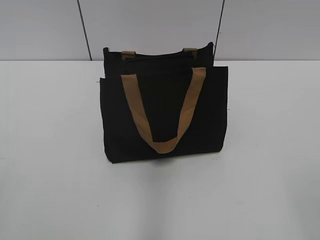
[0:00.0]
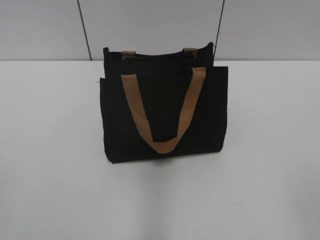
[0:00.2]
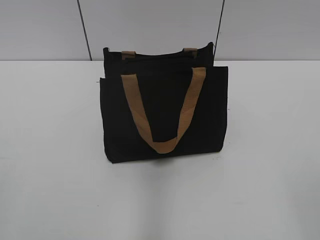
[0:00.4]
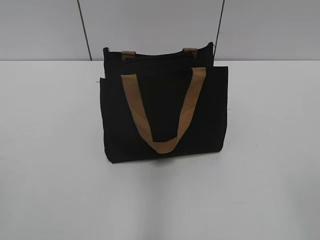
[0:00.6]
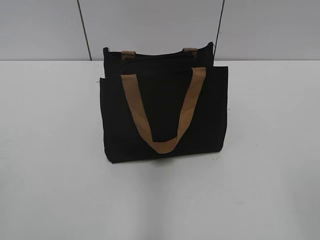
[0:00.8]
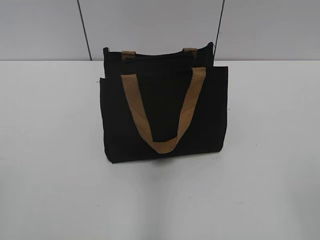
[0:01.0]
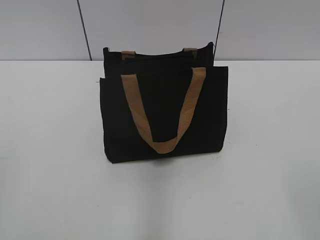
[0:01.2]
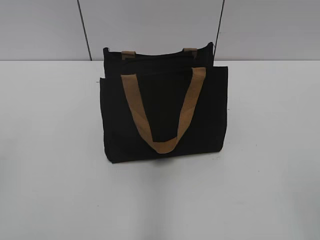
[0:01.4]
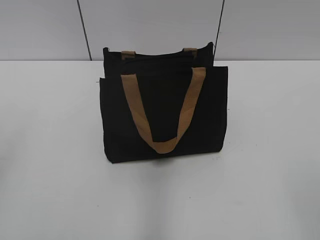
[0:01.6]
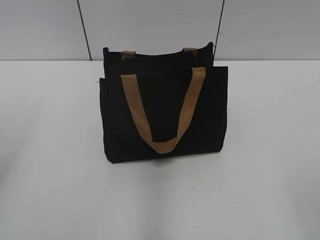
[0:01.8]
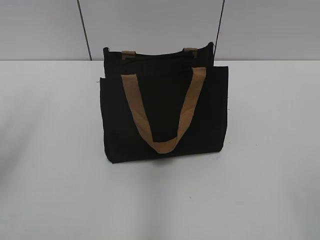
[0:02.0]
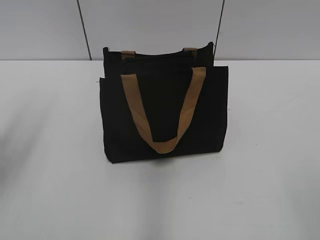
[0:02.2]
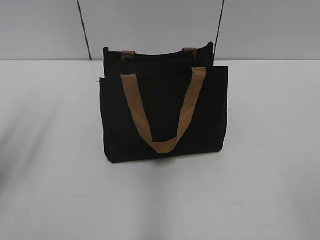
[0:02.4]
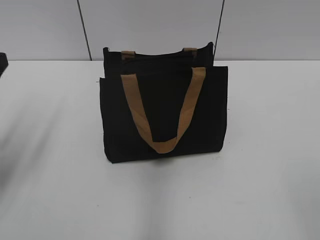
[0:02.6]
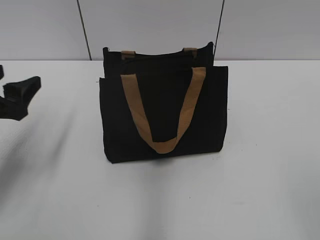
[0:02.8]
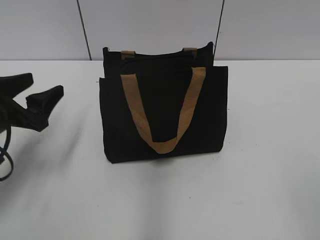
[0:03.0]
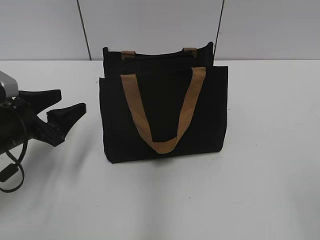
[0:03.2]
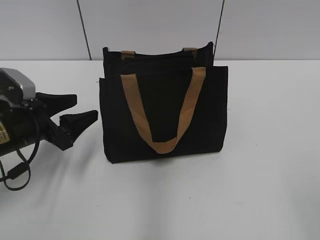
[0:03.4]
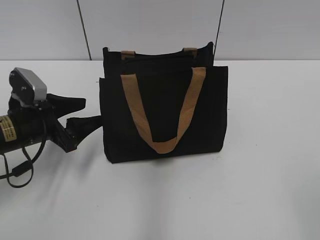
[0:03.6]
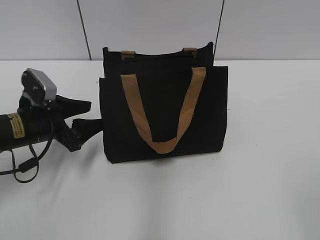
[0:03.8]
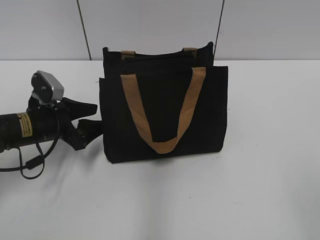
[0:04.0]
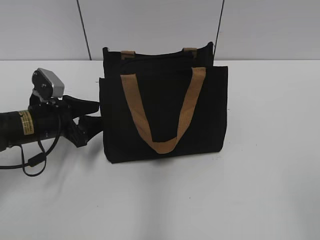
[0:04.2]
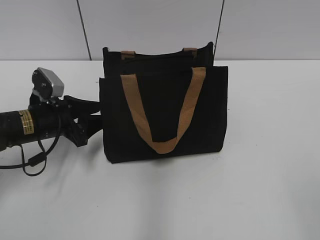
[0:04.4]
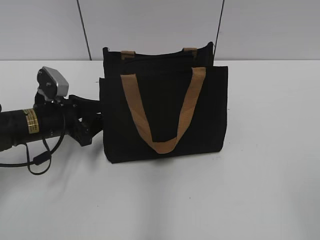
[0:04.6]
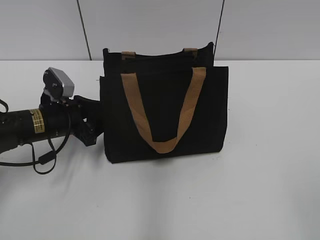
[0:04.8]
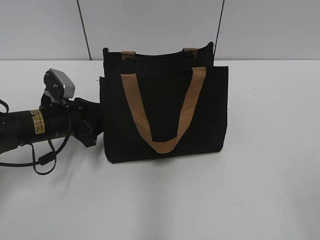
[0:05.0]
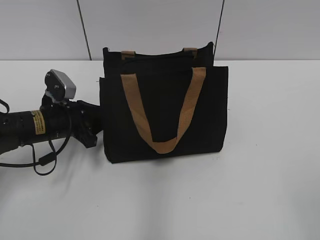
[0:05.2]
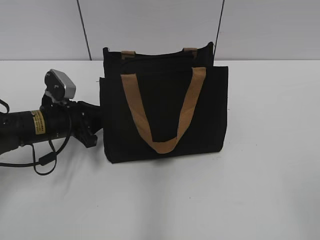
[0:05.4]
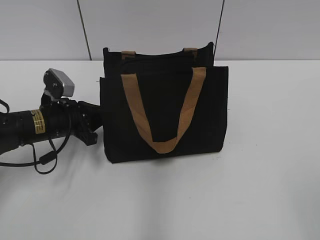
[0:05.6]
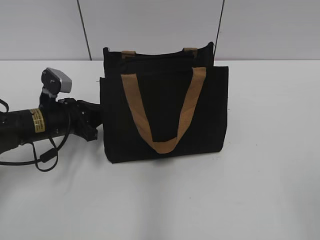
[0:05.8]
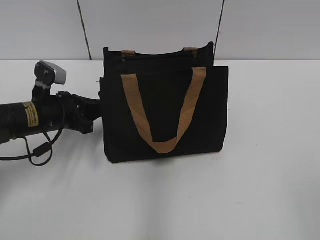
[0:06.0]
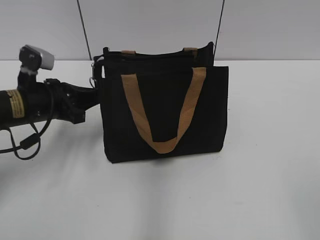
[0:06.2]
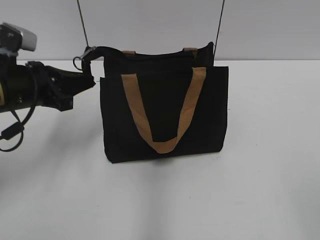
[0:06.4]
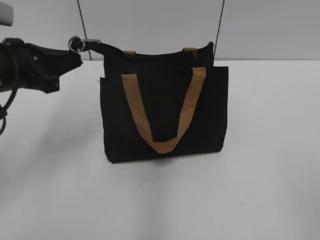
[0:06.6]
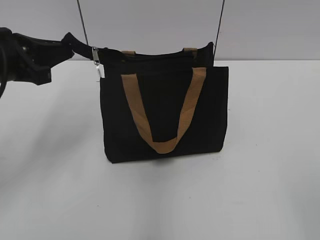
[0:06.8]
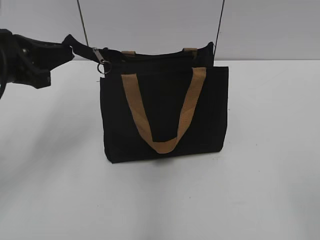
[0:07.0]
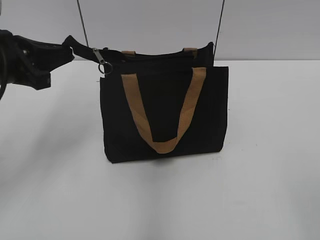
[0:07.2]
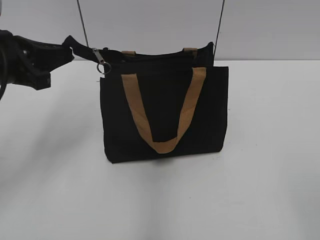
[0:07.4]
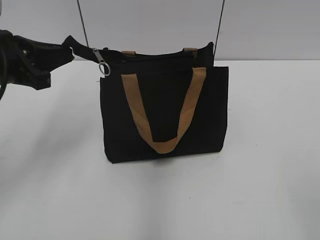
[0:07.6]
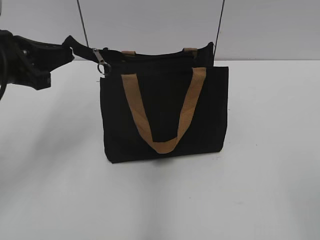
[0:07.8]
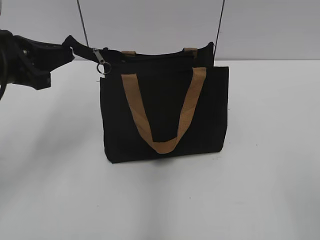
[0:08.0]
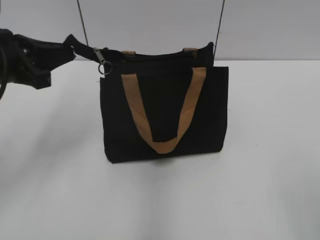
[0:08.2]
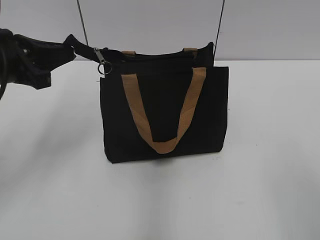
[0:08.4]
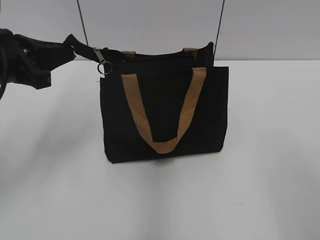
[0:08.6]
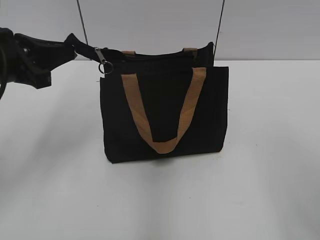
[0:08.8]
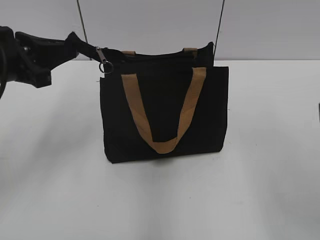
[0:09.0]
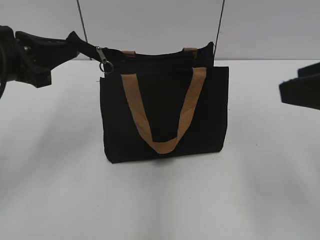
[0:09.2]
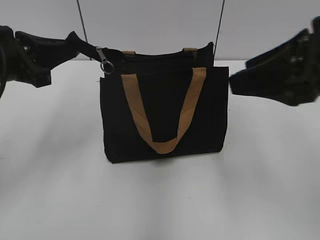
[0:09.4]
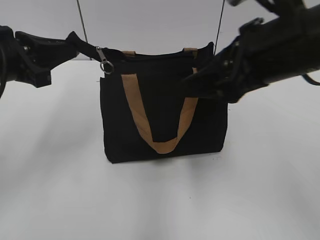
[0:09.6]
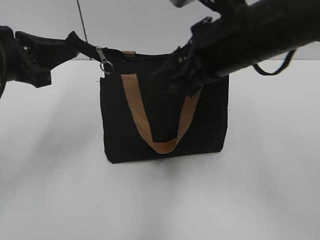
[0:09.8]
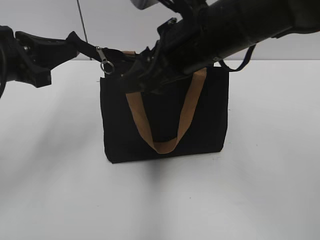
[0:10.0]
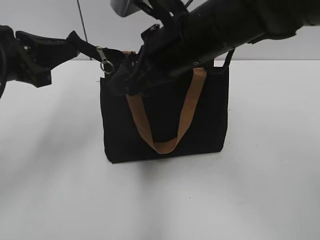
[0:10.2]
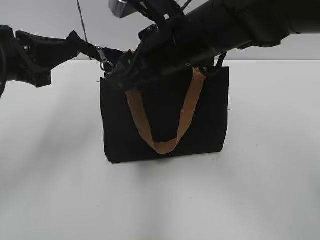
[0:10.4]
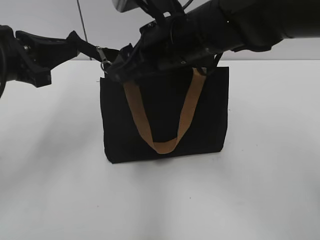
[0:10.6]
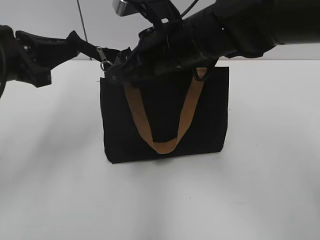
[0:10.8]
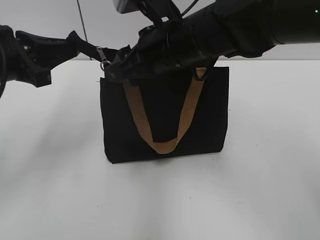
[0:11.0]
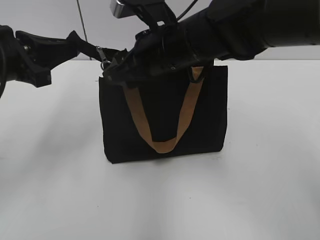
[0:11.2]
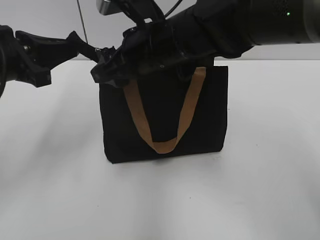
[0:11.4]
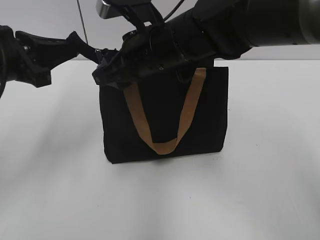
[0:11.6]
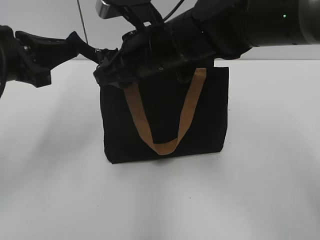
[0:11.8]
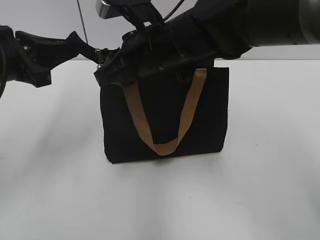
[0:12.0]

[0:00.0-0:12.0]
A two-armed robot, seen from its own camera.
0:01.6 to 0:03.0: The left gripper travels forward and downward by about 25 cm.
0:03.0 to 0:04.4: The left gripper goes about 10 cm downward and forward.
0:04.4 to 0:06.0: The left gripper closes.
0:06.0 to 0:07.6: The left gripper goes roughly 15 cm upward.
0:09.0 to 0:10.4: The right gripper travels to the left and forward by some 30 cm.
0:10.4 to 0:12.0: The right gripper closes its fingers.

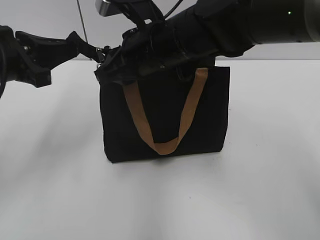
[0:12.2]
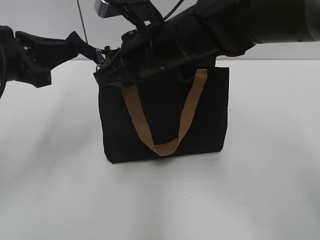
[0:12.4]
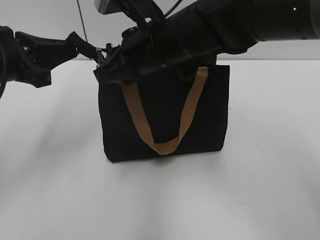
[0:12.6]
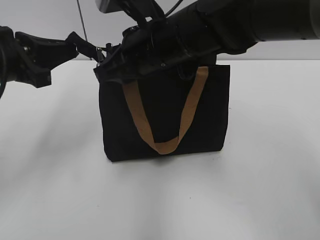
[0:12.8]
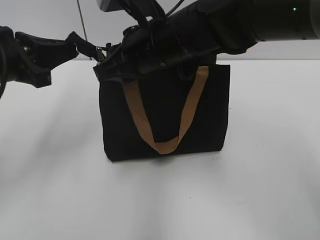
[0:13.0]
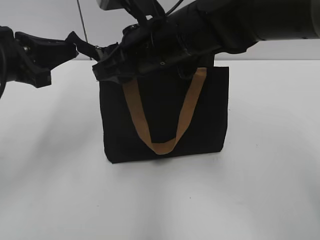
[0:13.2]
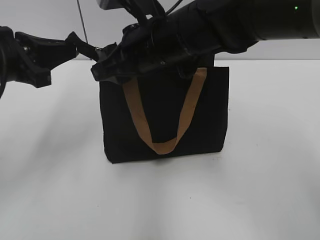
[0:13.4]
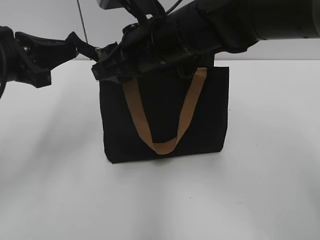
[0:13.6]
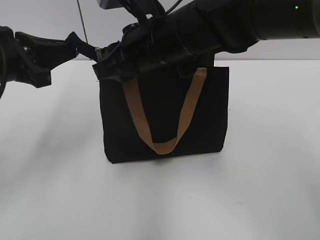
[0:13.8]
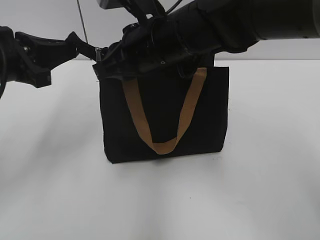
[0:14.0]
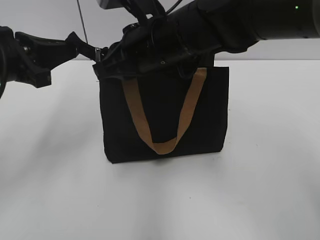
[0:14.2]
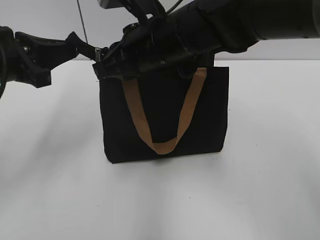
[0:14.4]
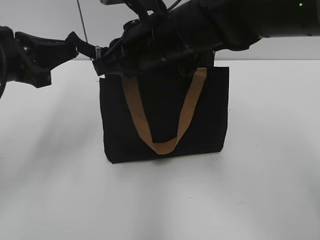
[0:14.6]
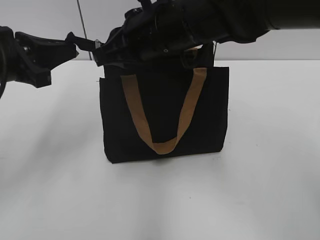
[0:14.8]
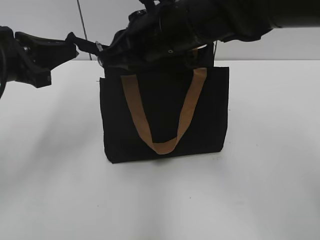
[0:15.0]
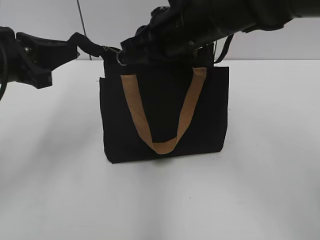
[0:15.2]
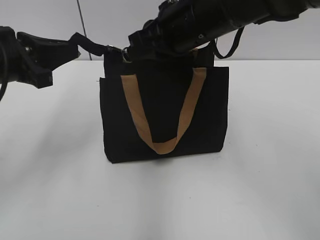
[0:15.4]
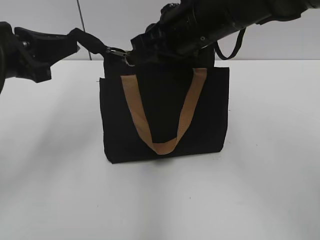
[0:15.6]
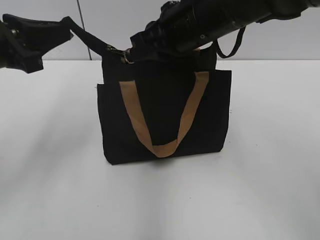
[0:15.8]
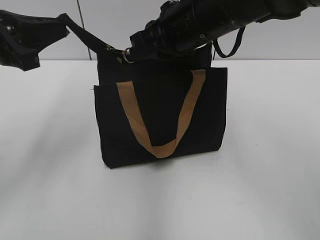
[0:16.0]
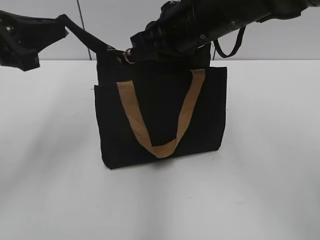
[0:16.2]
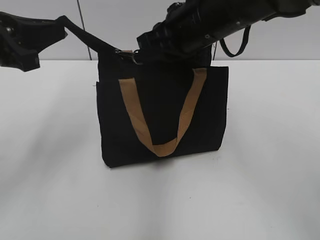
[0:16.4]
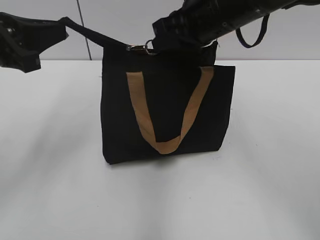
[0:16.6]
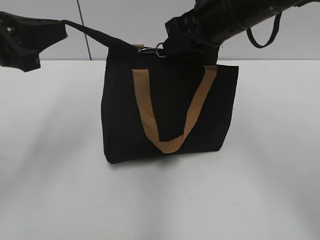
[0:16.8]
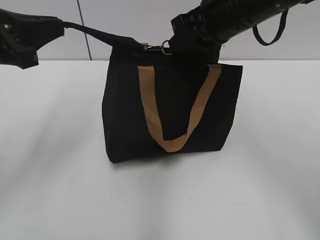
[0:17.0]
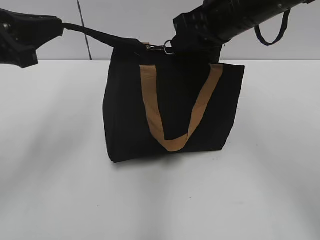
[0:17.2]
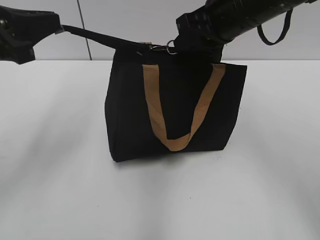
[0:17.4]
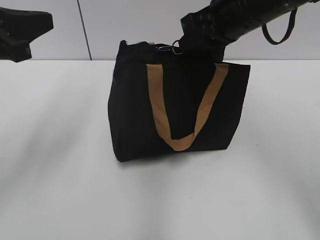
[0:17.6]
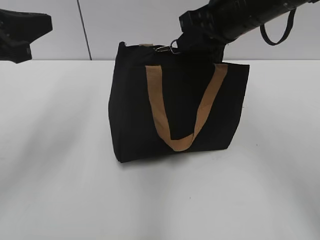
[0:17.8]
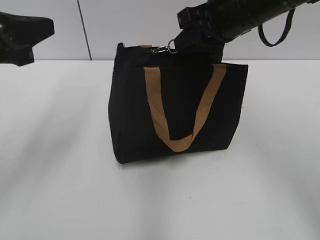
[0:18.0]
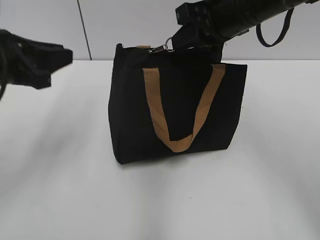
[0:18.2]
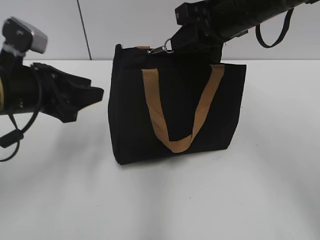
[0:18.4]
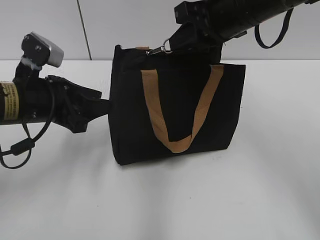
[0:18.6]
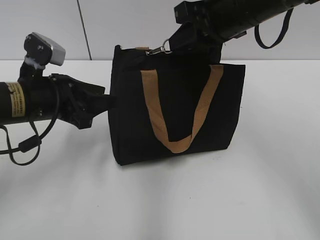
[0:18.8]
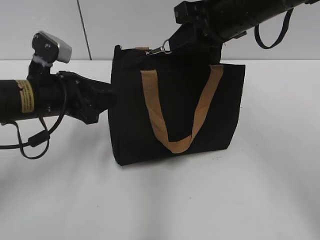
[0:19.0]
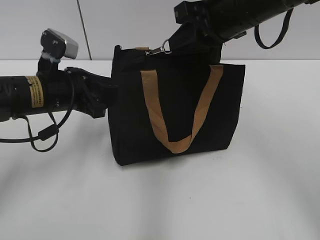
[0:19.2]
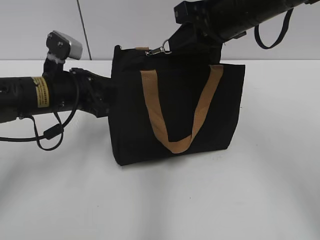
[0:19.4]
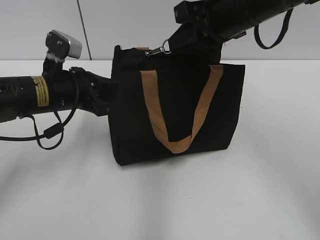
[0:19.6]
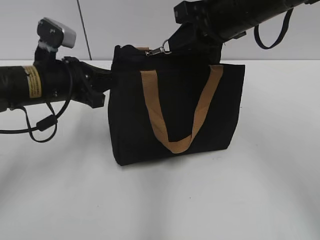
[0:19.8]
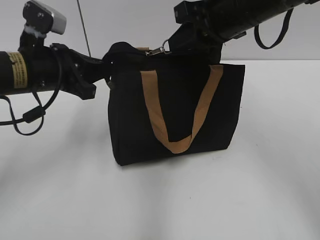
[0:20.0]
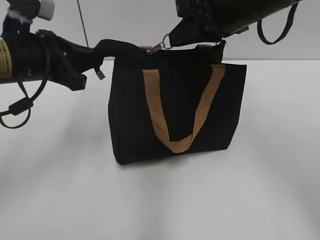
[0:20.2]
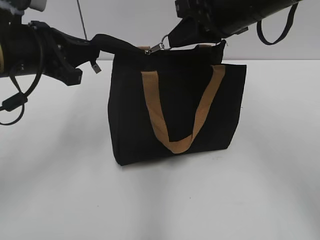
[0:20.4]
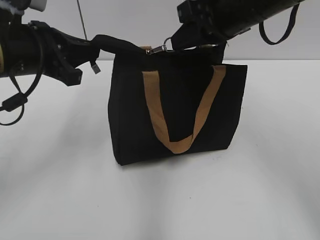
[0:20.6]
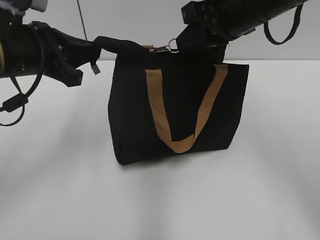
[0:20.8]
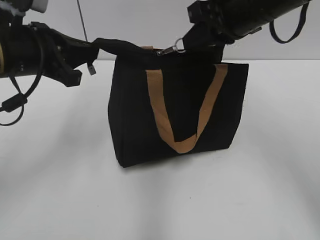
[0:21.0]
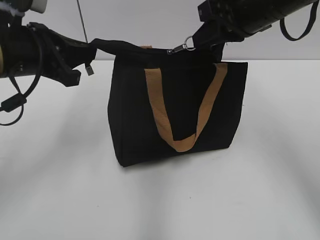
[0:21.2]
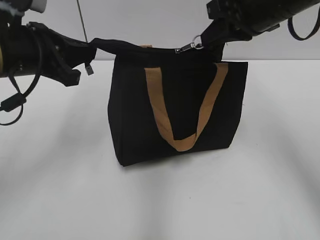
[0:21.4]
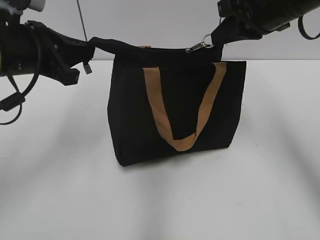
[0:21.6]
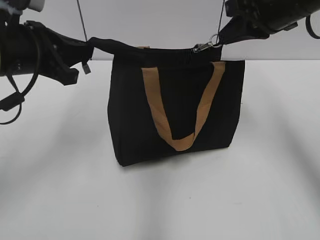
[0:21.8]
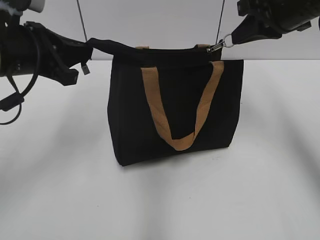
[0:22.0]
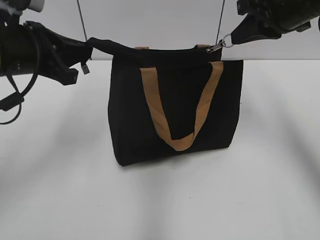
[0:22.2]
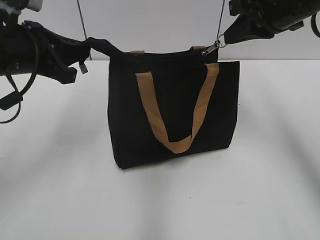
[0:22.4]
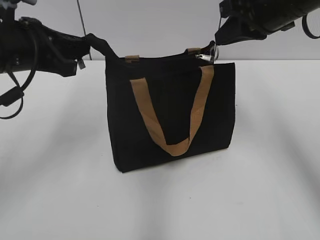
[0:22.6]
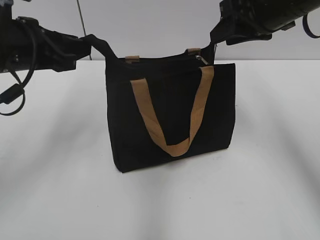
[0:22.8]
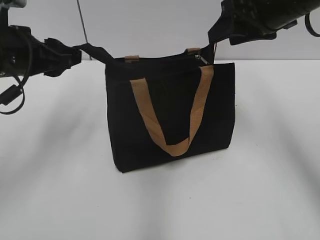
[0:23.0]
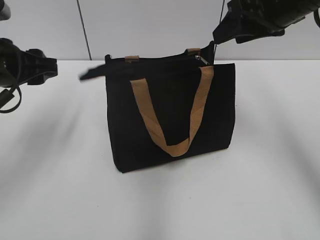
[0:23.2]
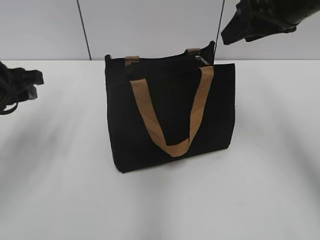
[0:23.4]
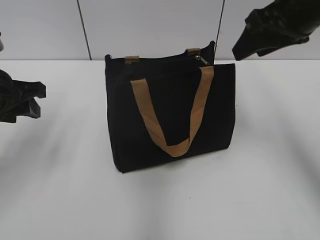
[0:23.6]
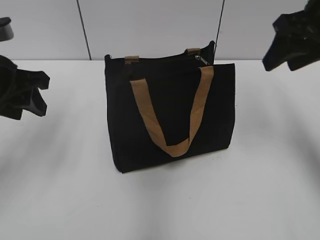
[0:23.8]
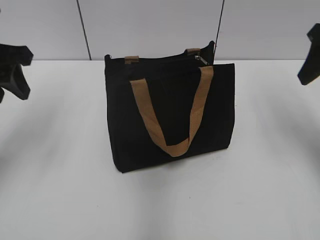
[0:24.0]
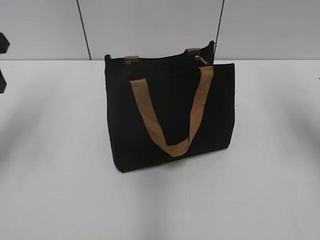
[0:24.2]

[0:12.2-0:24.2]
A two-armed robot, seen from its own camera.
Step, 0:12.2 to 0:22.6: Zip up the bag with your right hand.
Step, 0:22.8 to 0:23.2: Grab the zipper with your left hand.
0:12.2 to 0:13.8: Both grippers stay about where they are.
0:13.8 to 0:15.2: The right gripper closes up.
0:15.2 to 0:16.6: The grippers stay close to where they were, moving slightly.
0:16.6 to 0:18.2: The grippers make only small movements.
0:18.2 to 0:19.8: The left gripper shifts about 10 cm downward, to the right and forward, and opens, then closes again.
0:19.8 to 0:21.2: The left gripper heads upward, covering roughly 5 cm.
0:22.6 to 0:24.2: The right gripper heads to the right, covering roughly 10 cm, and opens its fingers, while the left gripper shifts about 5 cm to the left, and opens.
